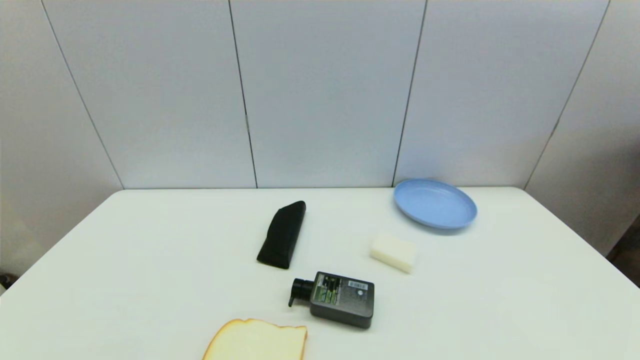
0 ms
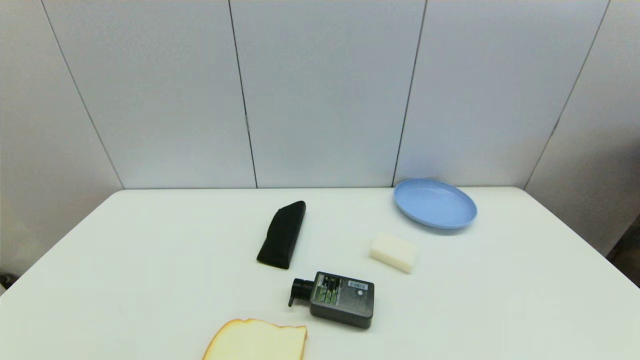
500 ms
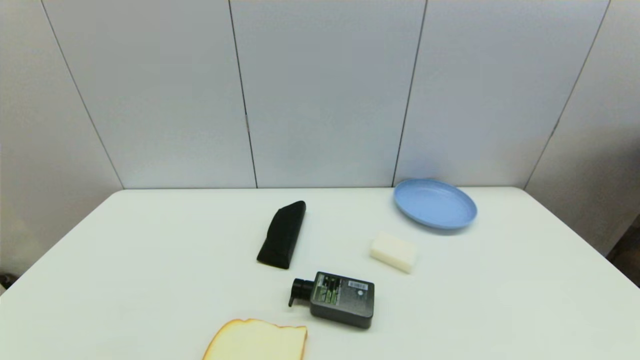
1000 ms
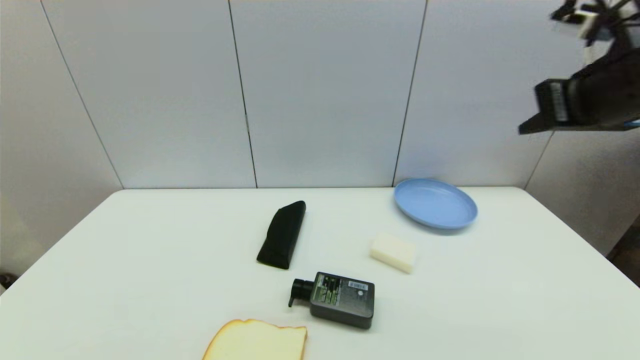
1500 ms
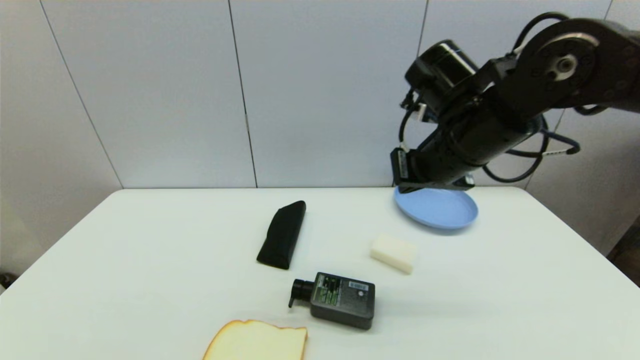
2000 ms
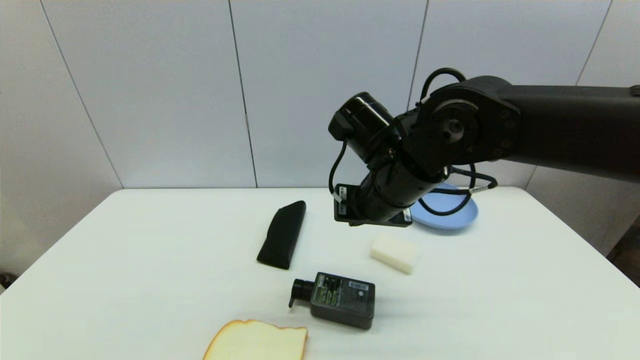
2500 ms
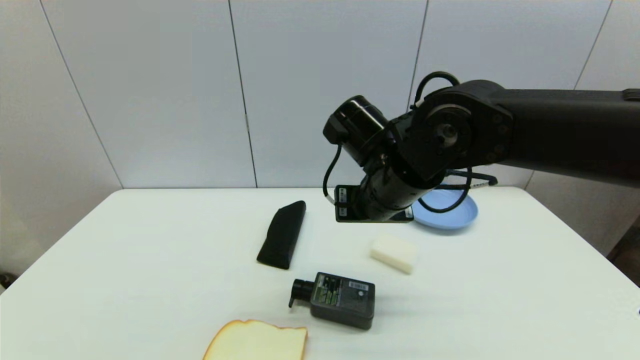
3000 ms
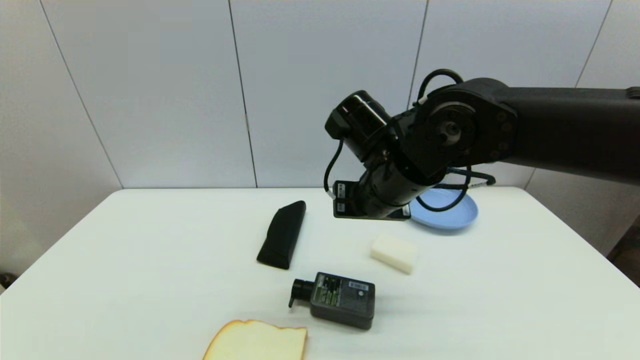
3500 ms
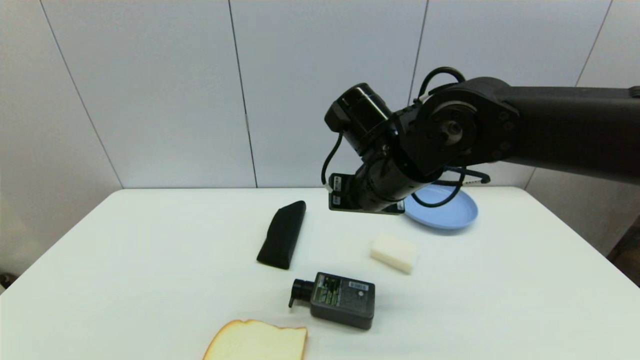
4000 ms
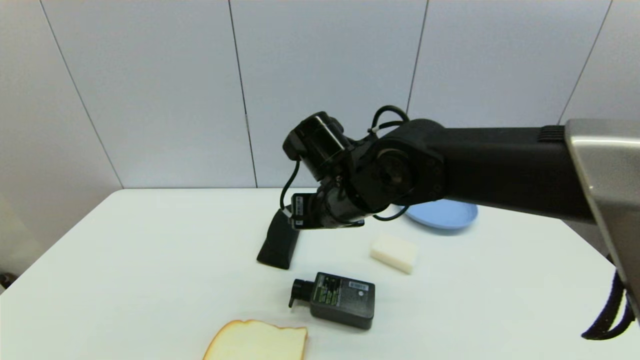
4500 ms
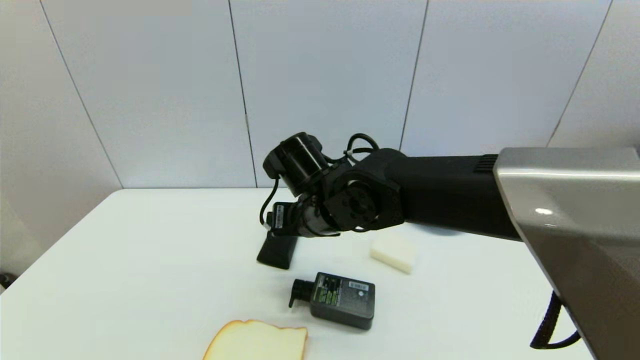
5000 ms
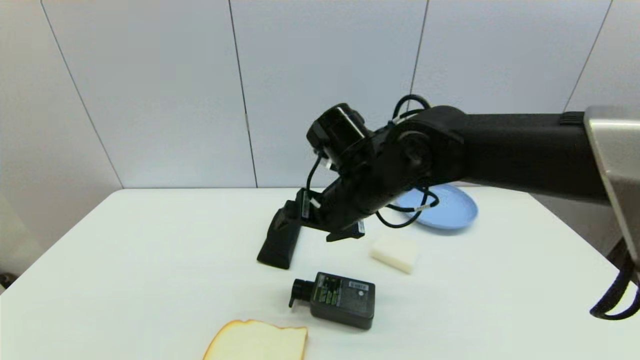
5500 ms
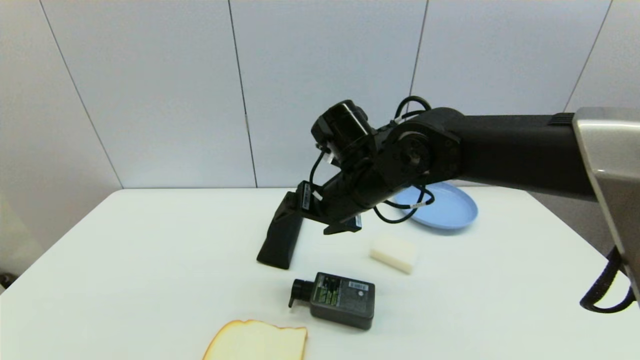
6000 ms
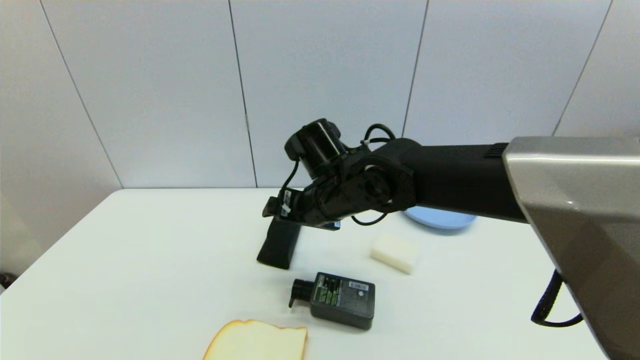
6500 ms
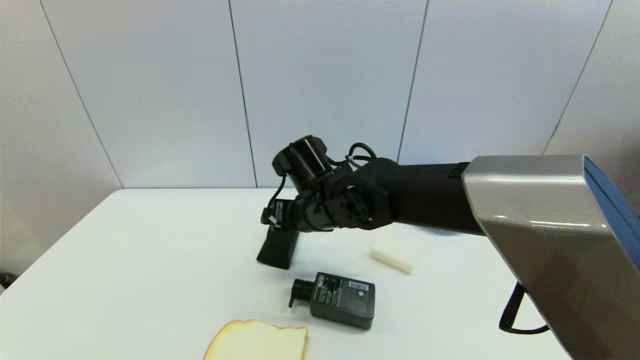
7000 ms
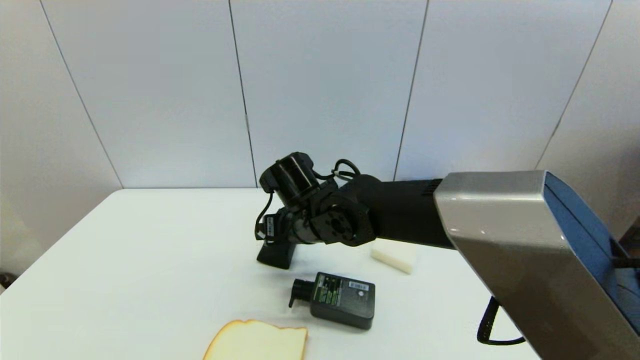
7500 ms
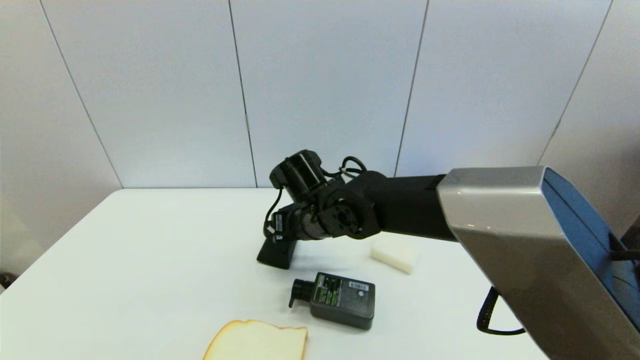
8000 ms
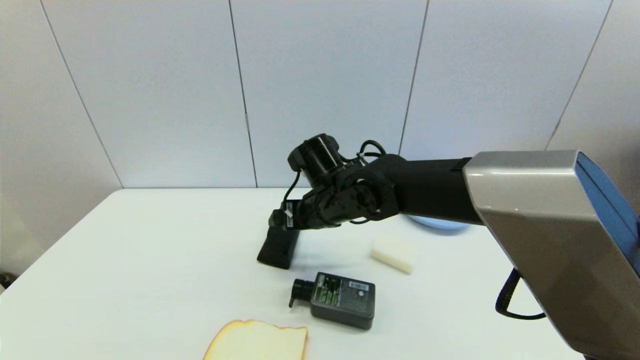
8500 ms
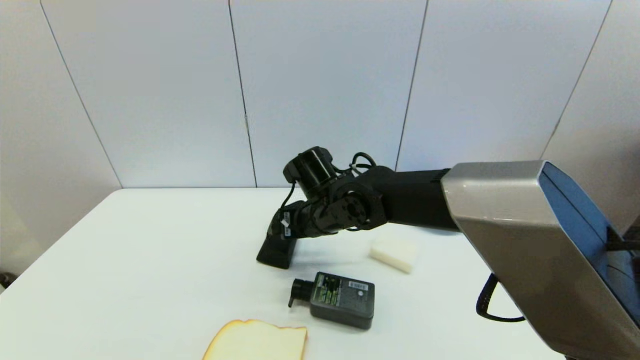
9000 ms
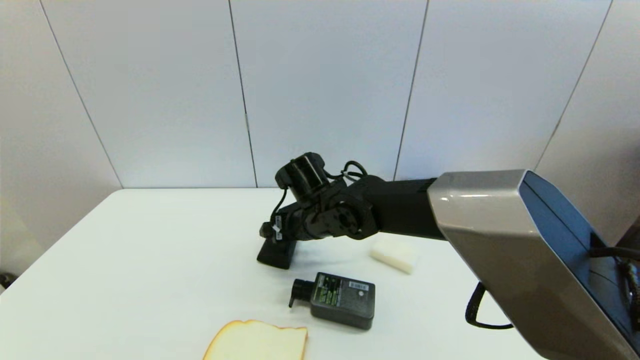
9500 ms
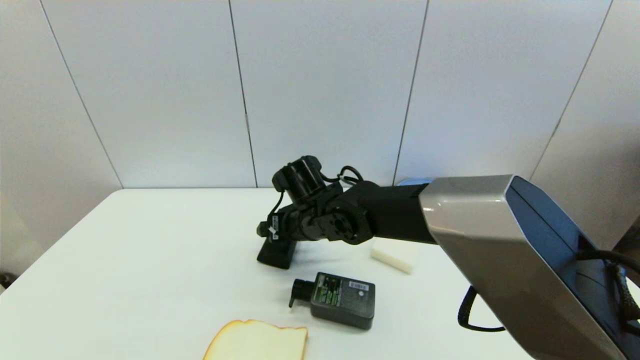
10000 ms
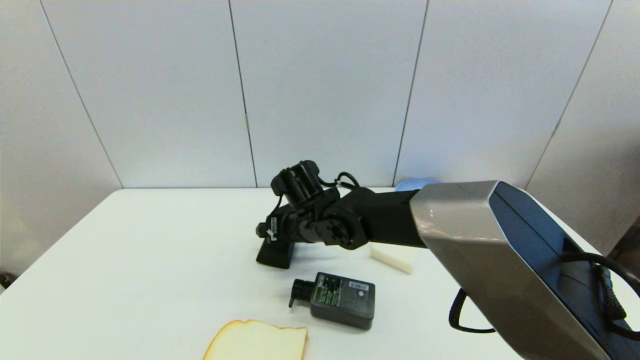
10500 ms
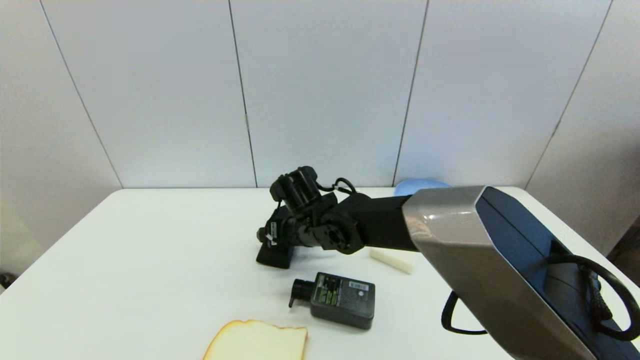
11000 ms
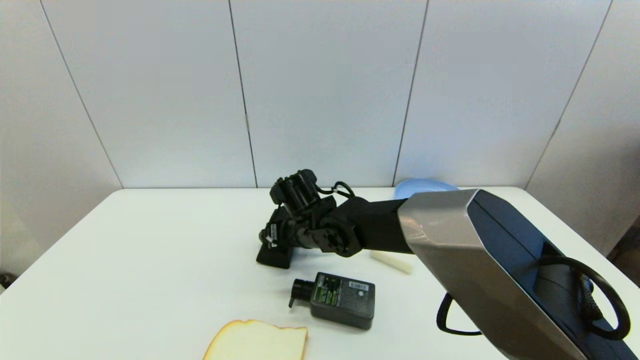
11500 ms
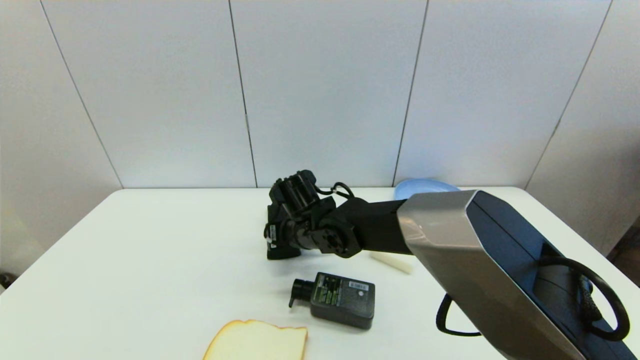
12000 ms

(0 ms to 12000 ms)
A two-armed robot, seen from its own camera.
0 ms - 2000 ms: The right gripper goes some 40 cm forward, upward and to the left.
2000 ms - 4000 ms: The right gripper travels to the left by roughly 10 cm, and opens up.
4000 ms - 6000 ms: The right gripper opens up.
6000 ms - 8000 ms: The right gripper is displaced downward and to the left by approximately 10 cm.
8000 ms - 10000 ms: There are only small adjustments of the grippers.
10000 ms - 12000 ms: The right gripper closes up.

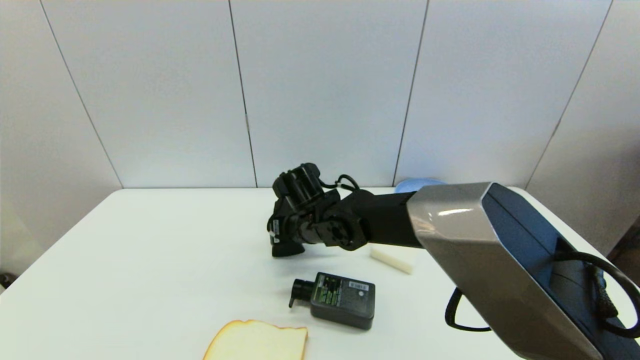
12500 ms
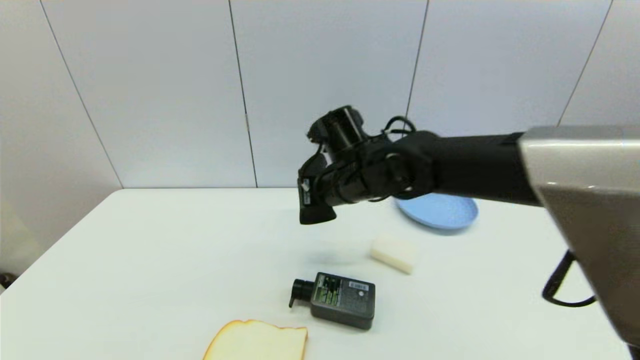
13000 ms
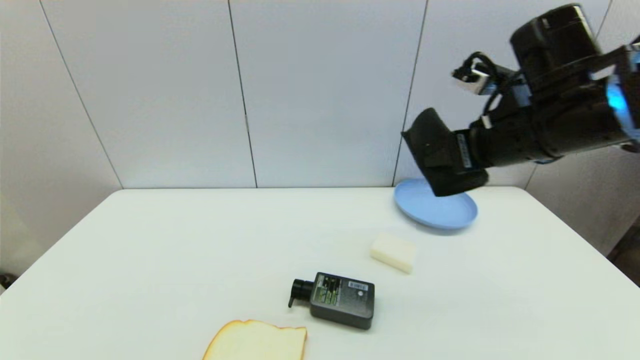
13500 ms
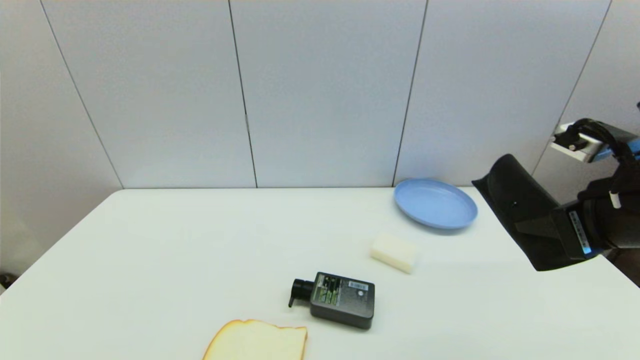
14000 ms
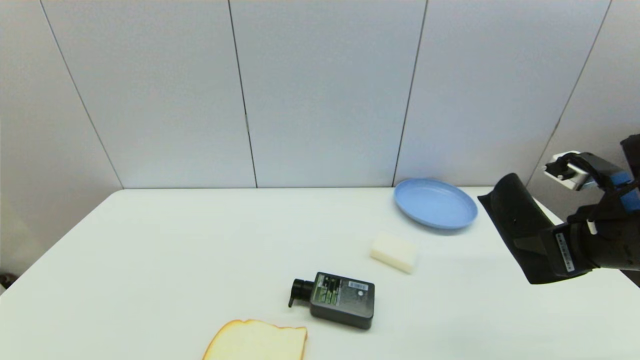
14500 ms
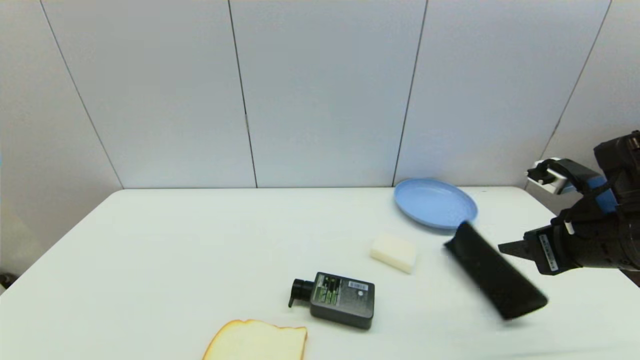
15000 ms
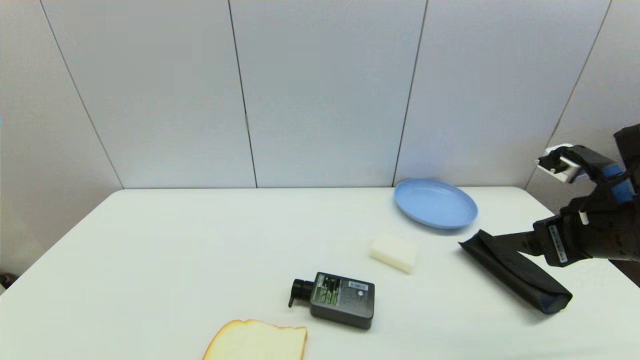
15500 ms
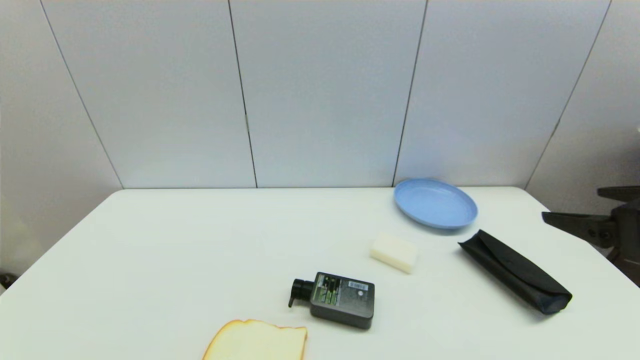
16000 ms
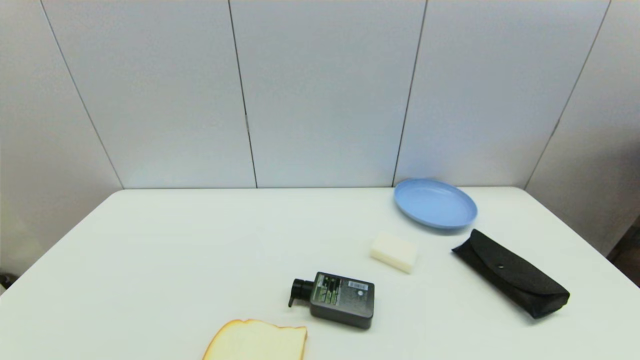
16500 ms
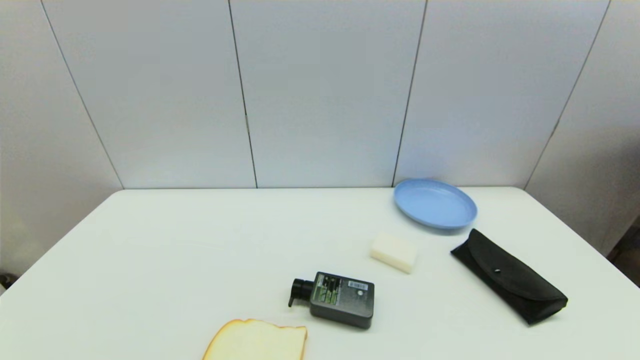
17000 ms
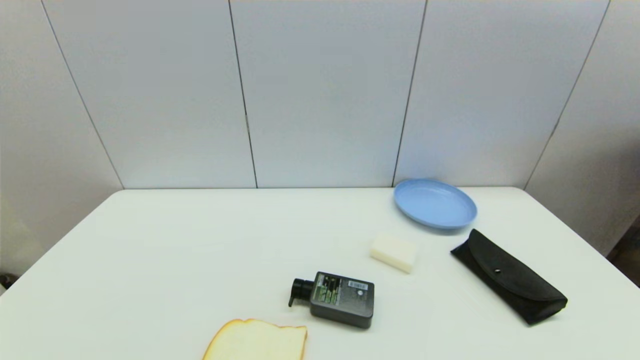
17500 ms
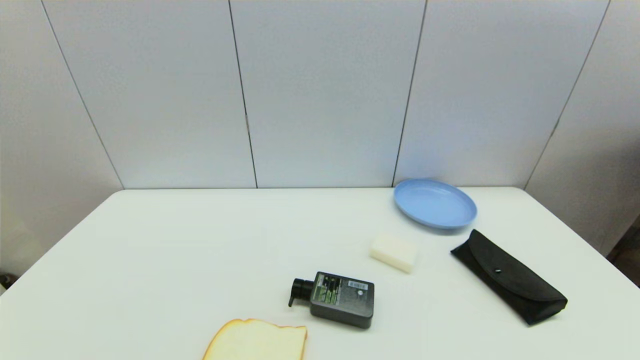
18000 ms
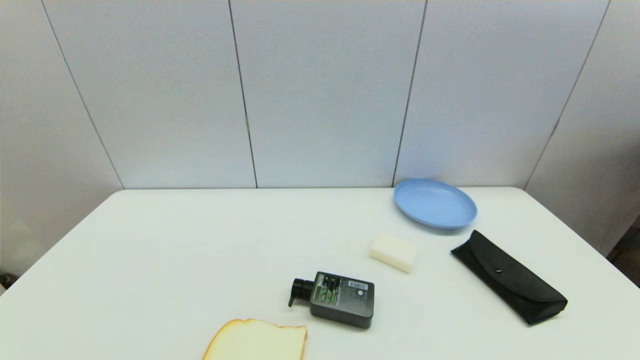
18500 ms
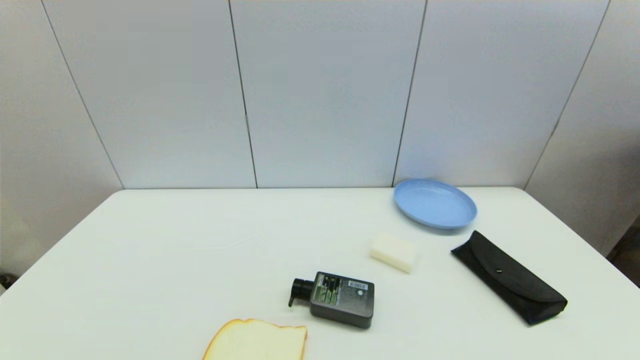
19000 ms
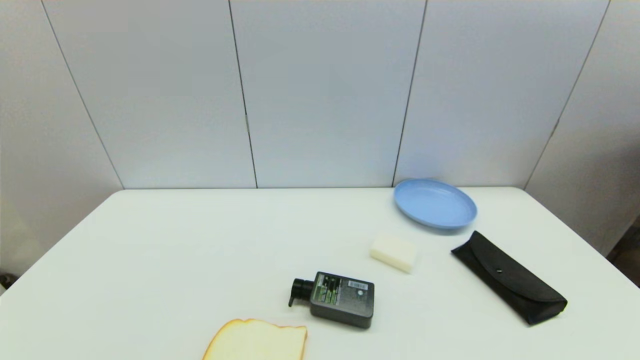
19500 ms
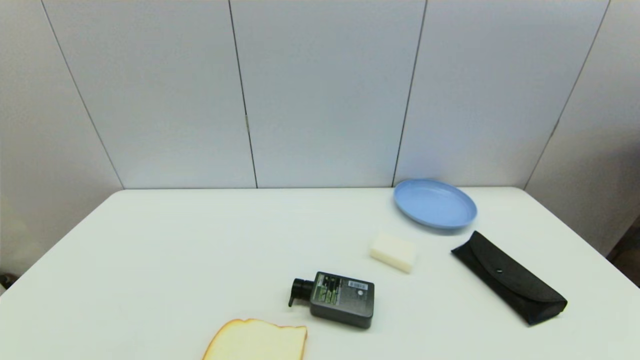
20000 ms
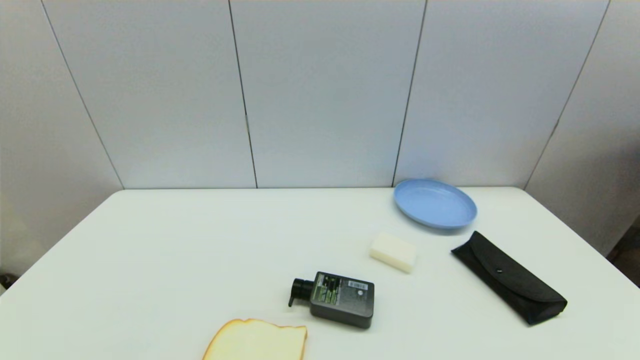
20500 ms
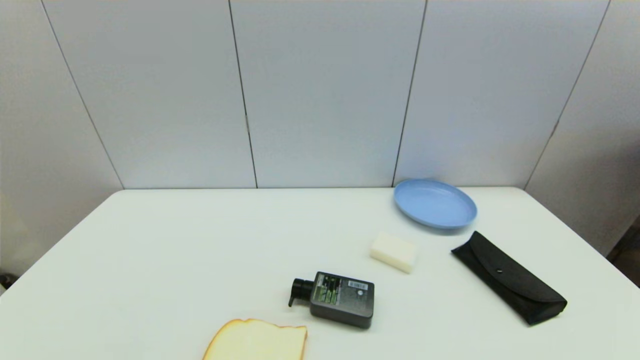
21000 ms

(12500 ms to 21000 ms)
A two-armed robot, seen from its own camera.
Step, 12500 ms - 15000 ms: Place the glasses case on the table with right gripper.
12500 ms - 14500 ms: The right gripper is displaced to the right and backward by about 35 cm.
14500 ms - 16500 ms: The right gripper travels backward by roughly 15 cm, and opens up.
16500 ms - 19000 ms: The right gripper is displaced downward by roughly 15 cm.
